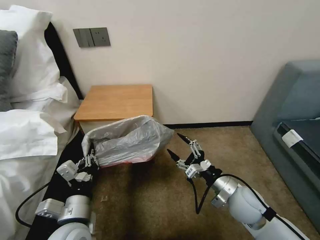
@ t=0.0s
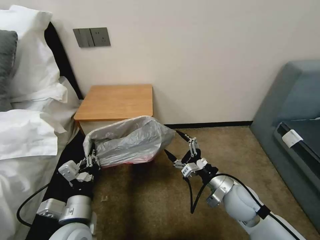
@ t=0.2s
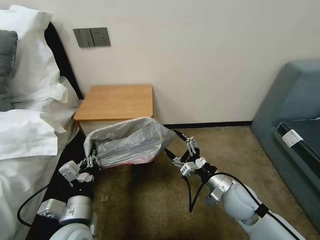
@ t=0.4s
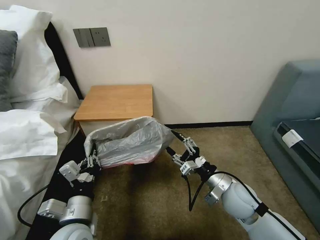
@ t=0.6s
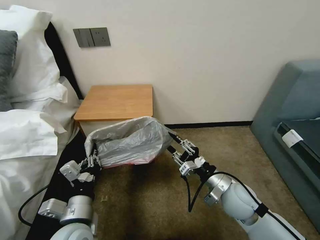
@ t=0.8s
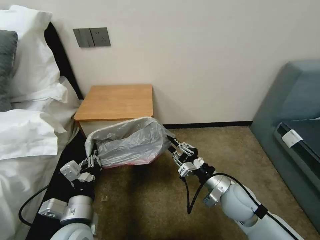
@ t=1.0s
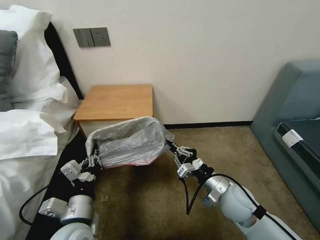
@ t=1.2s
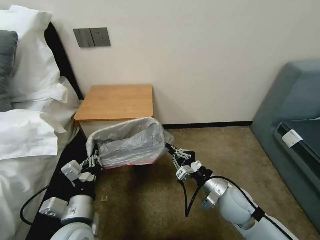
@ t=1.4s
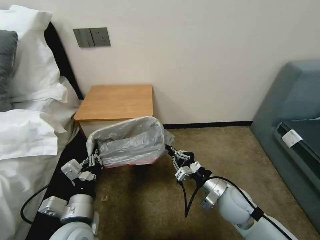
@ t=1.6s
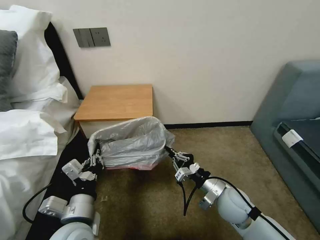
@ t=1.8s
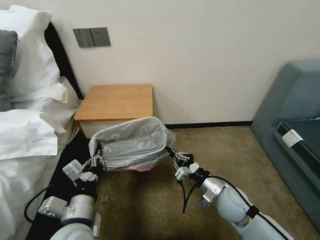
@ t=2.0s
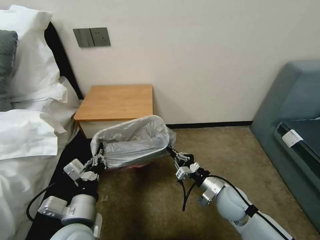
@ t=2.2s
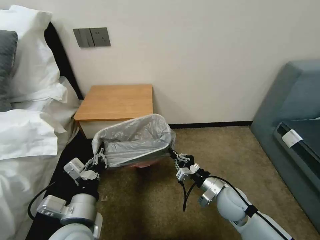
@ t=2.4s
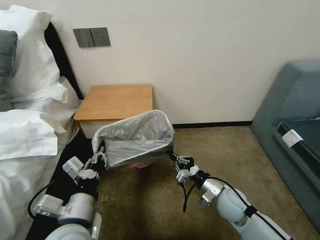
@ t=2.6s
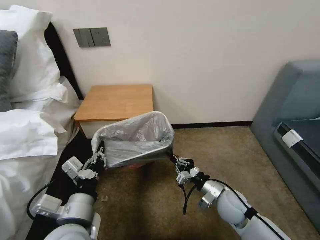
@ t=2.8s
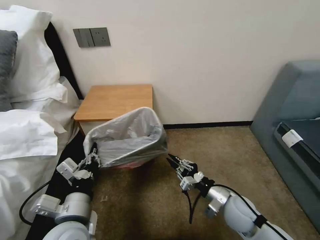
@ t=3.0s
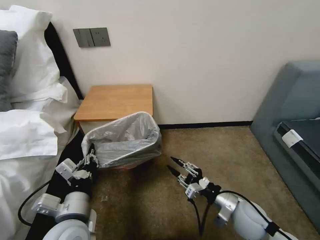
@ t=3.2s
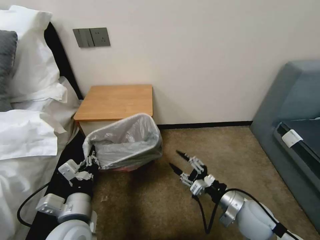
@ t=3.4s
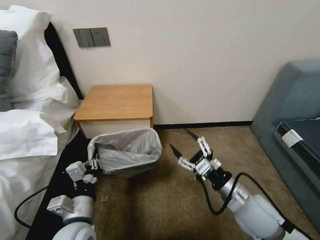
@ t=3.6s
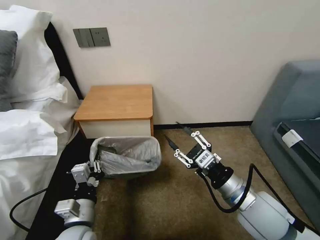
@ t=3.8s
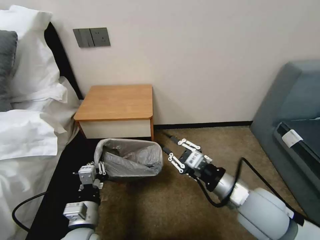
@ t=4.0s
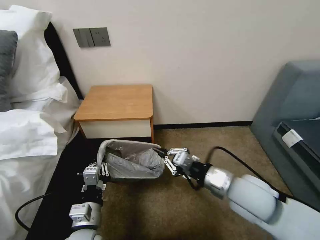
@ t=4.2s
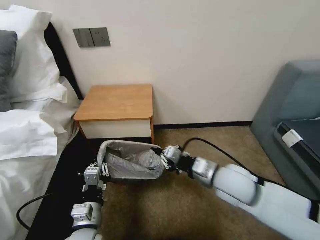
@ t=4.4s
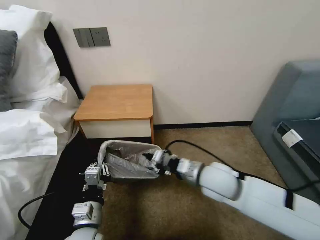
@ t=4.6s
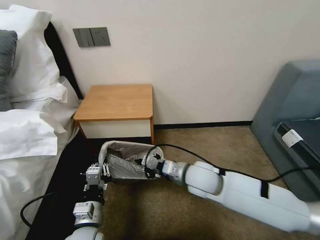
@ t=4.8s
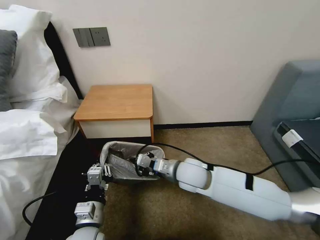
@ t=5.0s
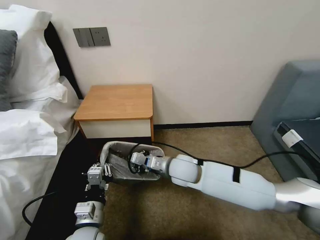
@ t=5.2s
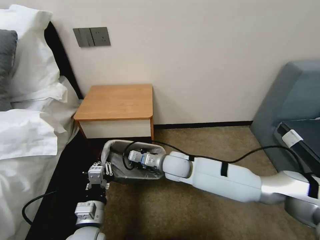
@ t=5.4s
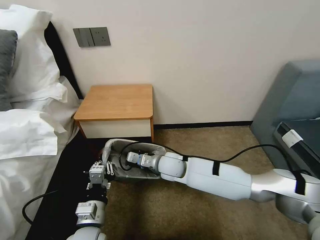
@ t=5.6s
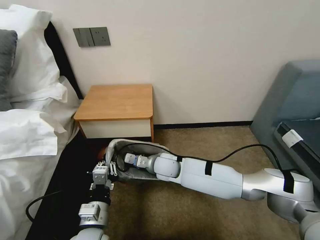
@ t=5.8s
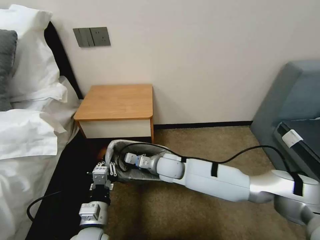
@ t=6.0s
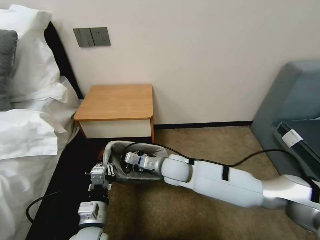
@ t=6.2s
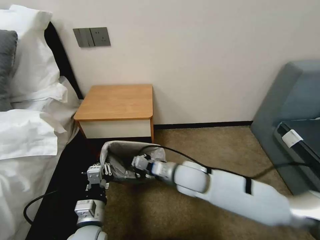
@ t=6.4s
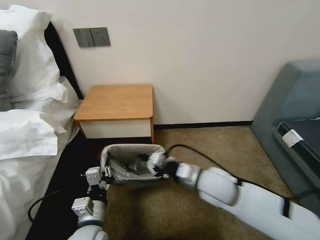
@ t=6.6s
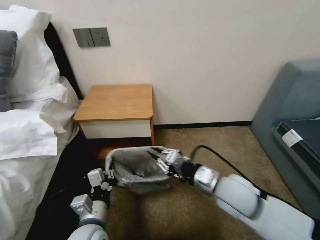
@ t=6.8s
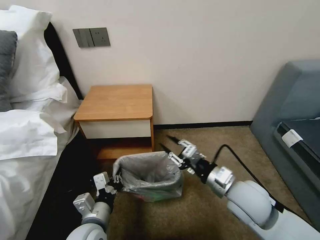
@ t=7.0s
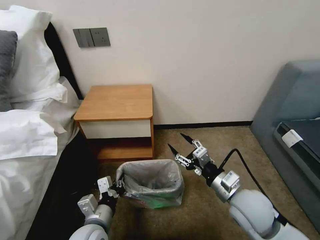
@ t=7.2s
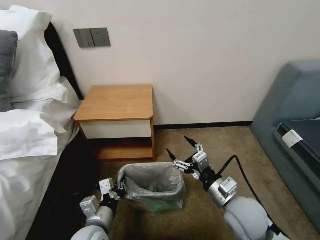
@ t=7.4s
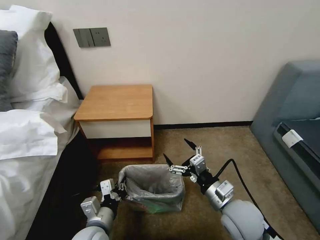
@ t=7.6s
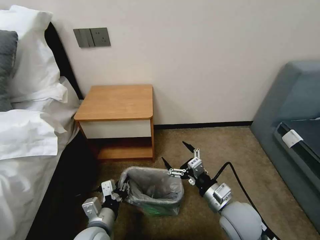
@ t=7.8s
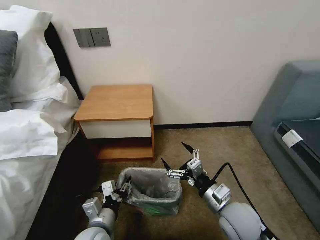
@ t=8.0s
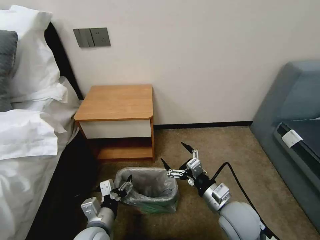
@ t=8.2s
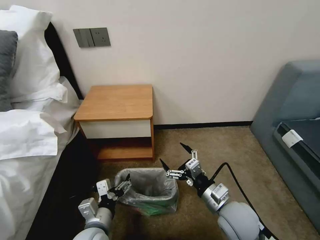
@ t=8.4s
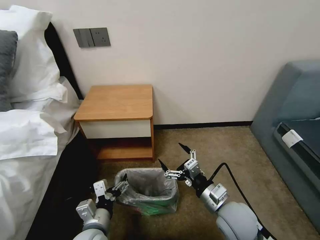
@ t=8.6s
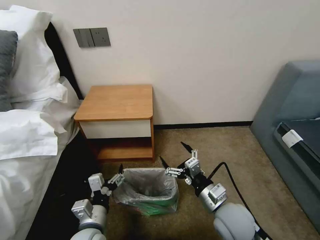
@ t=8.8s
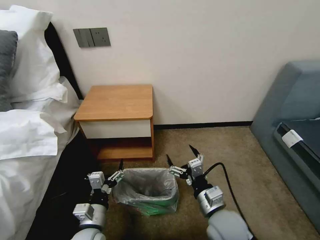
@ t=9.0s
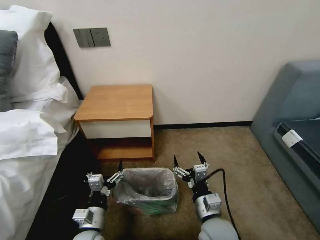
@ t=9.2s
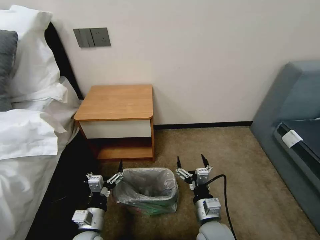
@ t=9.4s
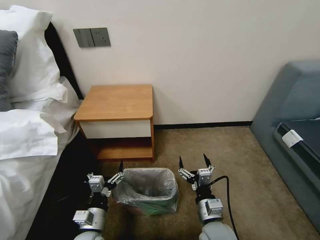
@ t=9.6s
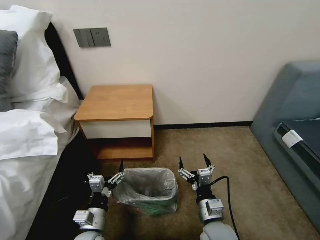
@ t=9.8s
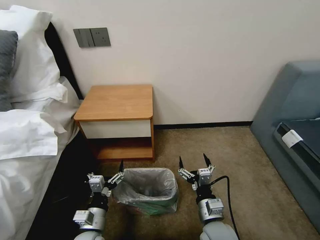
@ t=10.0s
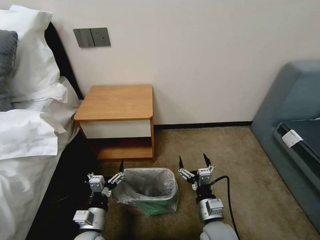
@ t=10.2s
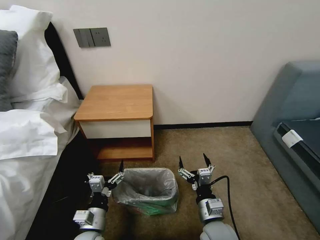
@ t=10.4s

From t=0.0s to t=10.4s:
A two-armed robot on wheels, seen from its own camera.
Task of the whole recording: Pick up the garbage bag from the table and place it over the trash can.
From t=0.0s to t=1.4s: The right gripper closes its fingers.
From t=1.4s to t=3.0s: The right gripper ends up approximately 5 cm from where it was.
From t=3.0s to t=4.4s: The right gripper goes about 15 cm upward, and opens, then closes once more; the left gripper shifts about 10 cm downward.
From t=4.4s to t=6.0s: The right gripper goes roughly 20 cm to the left, forward and downward.
From t=6.0s to t=7.4s: The right gripper goes some 25 cm to the right and backward, and opens.
From t=7.4s to t=9.0s: The right gripper ends up roughly 5 cm from where it was, while the left gripper opens up.
From t=9.0s to t=10.4s: The right gripper heads downward, covering some 5 cm.
